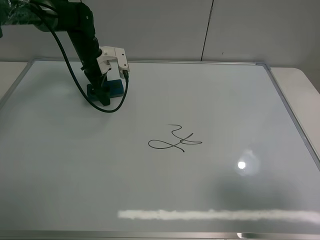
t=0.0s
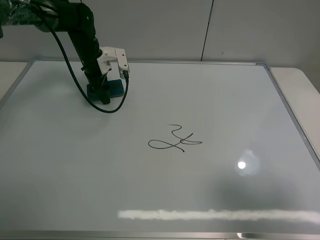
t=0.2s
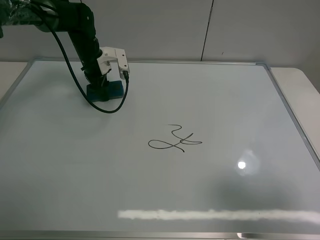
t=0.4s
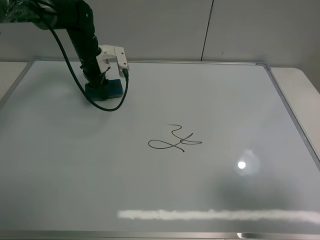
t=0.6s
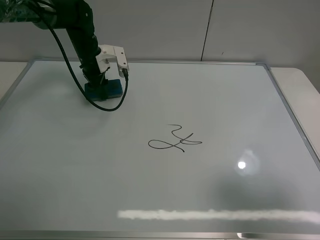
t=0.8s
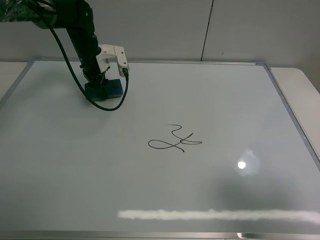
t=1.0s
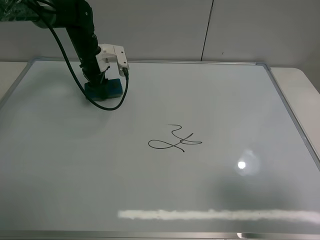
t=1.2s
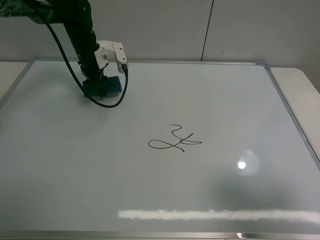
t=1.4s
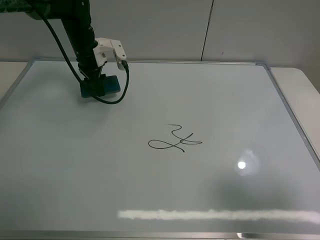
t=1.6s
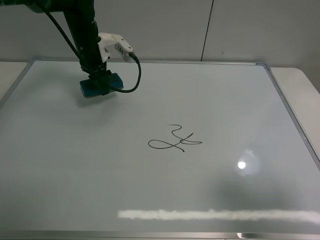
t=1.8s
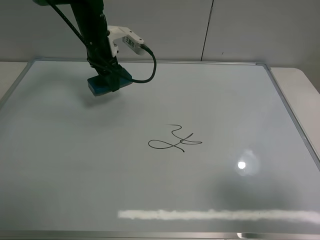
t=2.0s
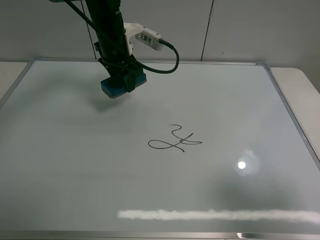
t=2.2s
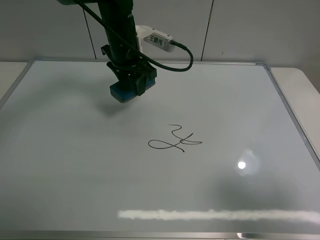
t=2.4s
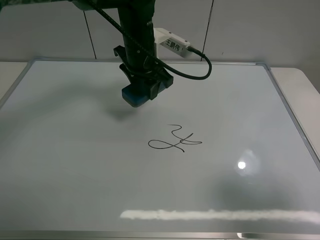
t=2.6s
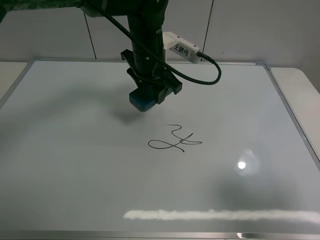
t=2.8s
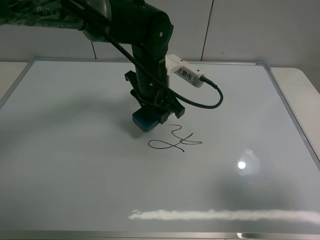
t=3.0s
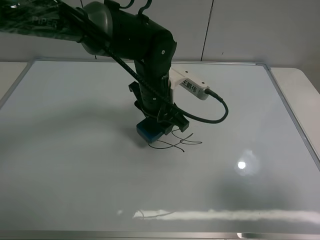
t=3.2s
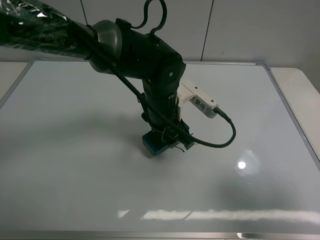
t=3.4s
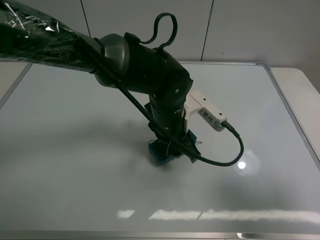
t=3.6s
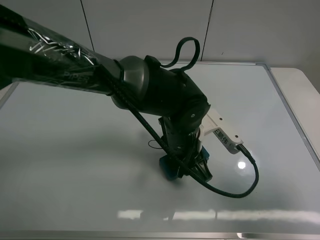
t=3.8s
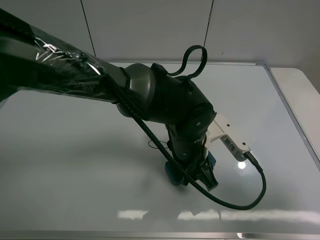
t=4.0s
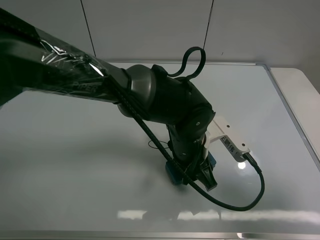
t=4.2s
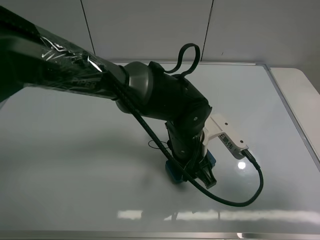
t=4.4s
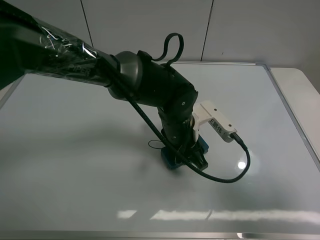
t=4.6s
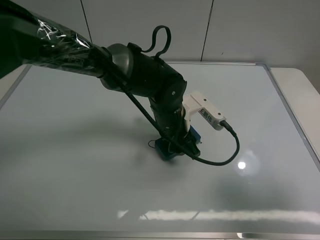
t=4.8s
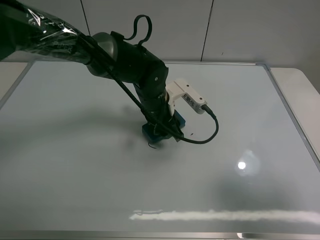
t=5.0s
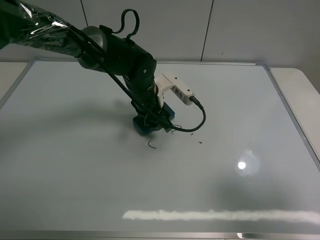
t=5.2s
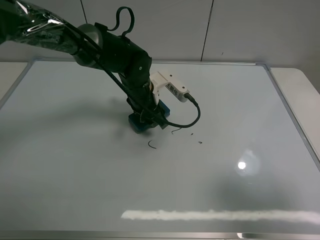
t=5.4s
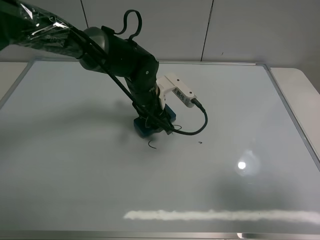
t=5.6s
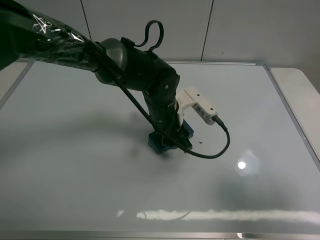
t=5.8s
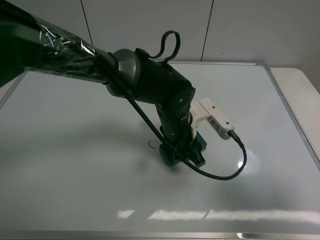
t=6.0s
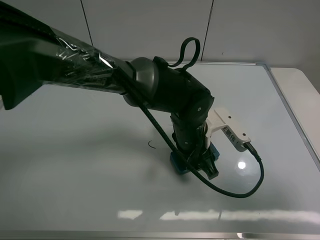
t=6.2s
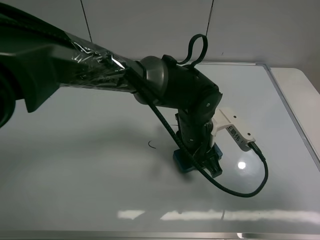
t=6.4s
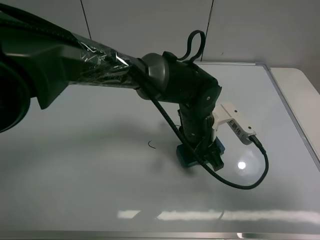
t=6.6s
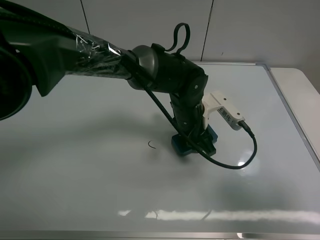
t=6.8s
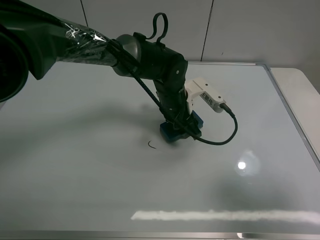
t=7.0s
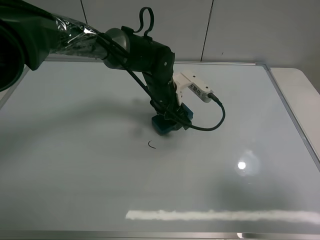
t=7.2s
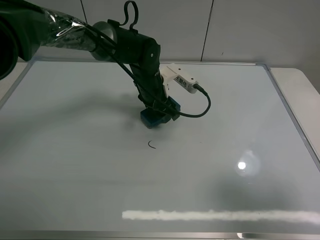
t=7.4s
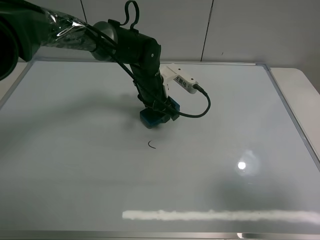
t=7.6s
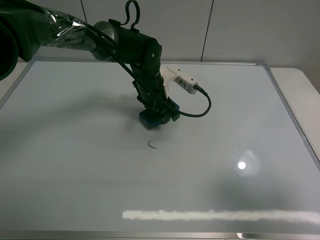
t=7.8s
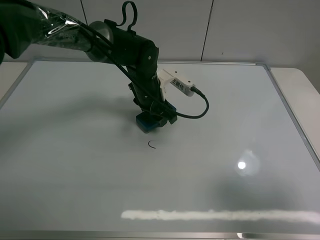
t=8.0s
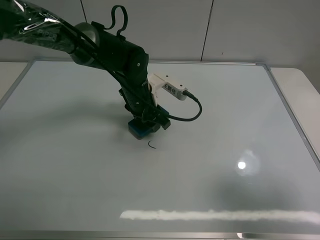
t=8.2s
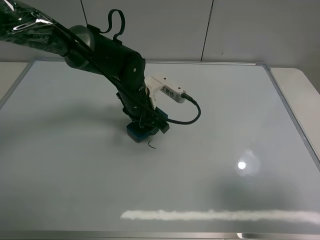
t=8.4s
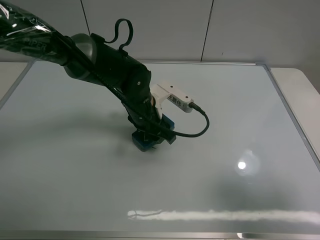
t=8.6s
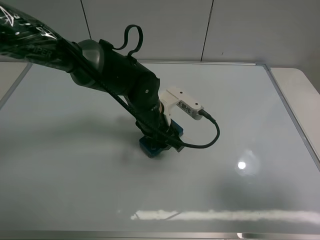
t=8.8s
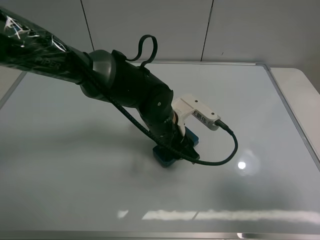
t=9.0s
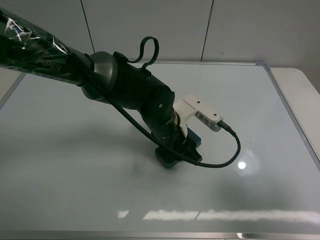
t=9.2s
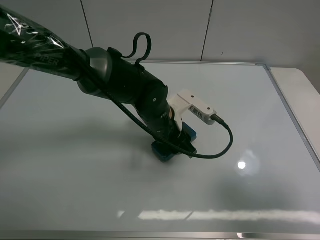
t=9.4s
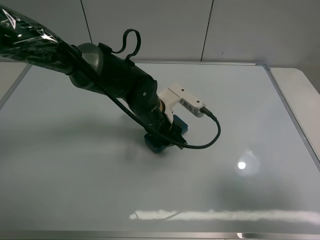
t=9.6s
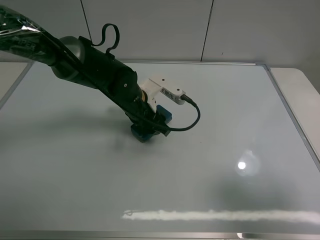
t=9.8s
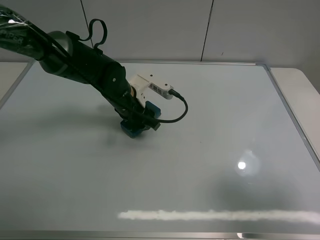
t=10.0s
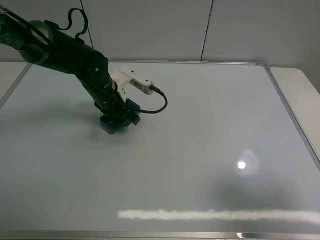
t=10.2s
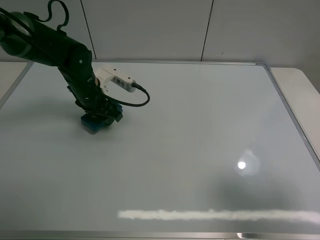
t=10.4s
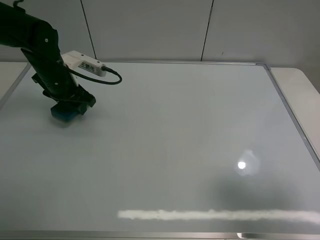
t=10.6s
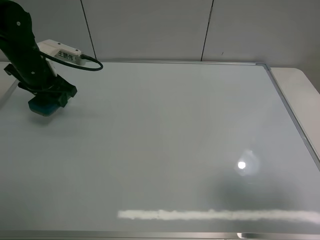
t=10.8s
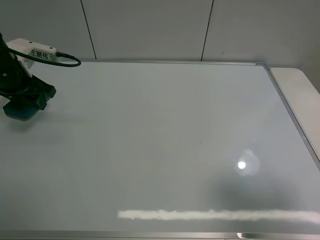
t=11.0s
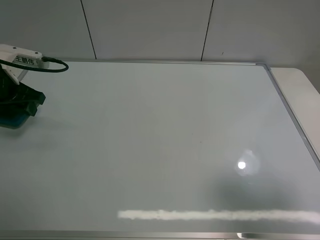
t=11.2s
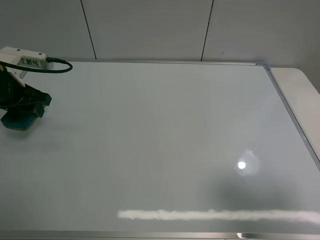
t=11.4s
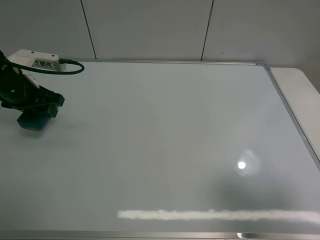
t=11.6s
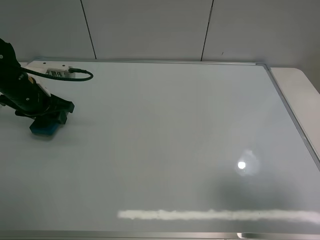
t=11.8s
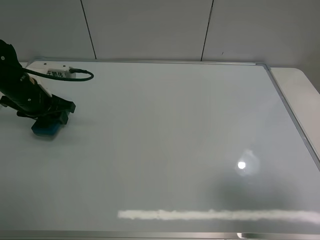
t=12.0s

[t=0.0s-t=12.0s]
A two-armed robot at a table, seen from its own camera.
Task of the whole recording: use the left claw to pick up the whiteboard eraser, wipe the notes on the whiteboard clean, and then put them back in place.
Step, t=0.6s to t=10.4s: Grasp the eraser and wipe the blackboard with the left gripper.
t=0.0s to t=1.6s: The left gripper closes up.
t=1.6s to t=3.0s: The left gripper shifts about 20 cm to the right and backward.
t=3.0s to t=4.4s: The left gripper moves backward, downward and to the right, about 15 cm.
t=4.4s to t=6.0s: The left gripper moves approximately 10 cm forward and comes back.
t=6.0s to t=7.6s: The left gripper heads forward and to the left, covering some 15 cm.
t=7.6s to t=9.0s: The left gripper travels backward by approximately 10 cm.
t=9.0s to t=10.4s: The left gripper moves to the left and forward, some 20 cm.
t=10.4s to t=12.0s: The left gripper shifts approximately 10 cm to the left.

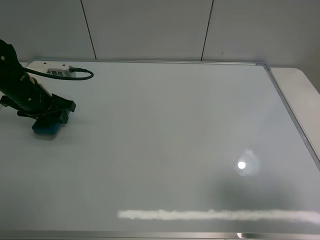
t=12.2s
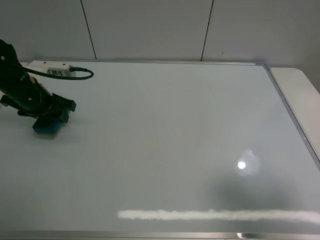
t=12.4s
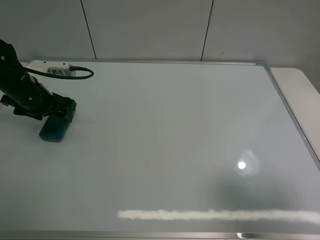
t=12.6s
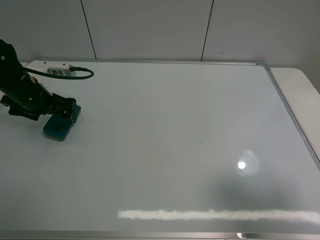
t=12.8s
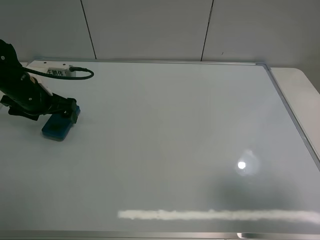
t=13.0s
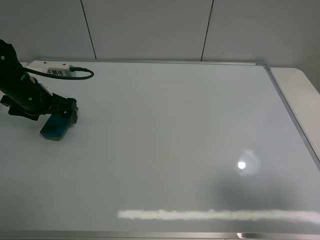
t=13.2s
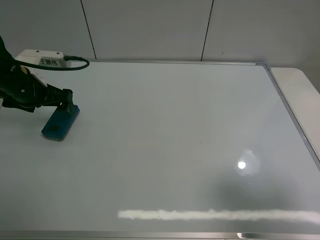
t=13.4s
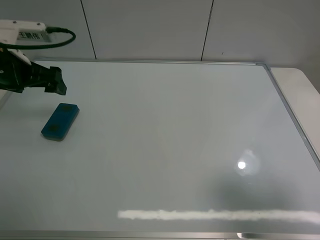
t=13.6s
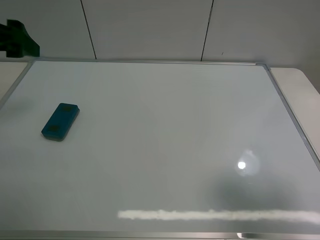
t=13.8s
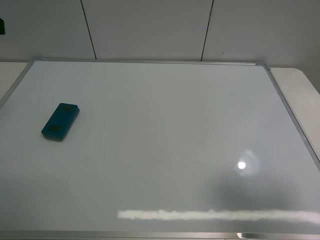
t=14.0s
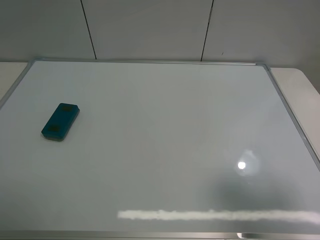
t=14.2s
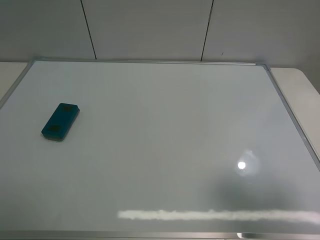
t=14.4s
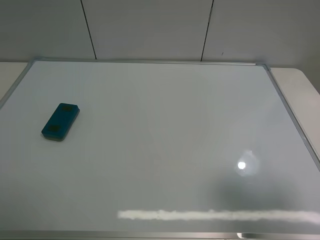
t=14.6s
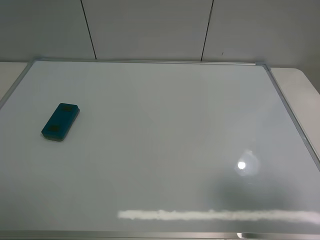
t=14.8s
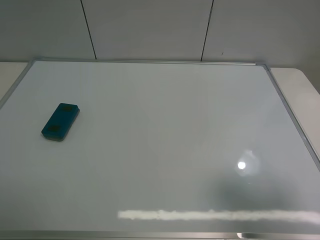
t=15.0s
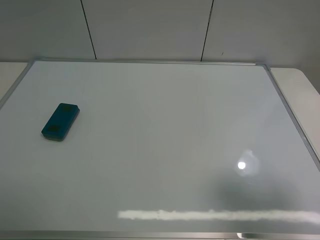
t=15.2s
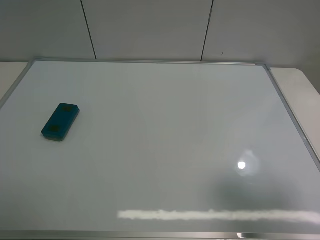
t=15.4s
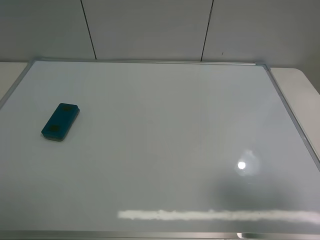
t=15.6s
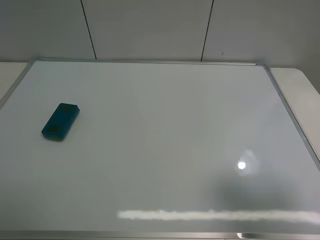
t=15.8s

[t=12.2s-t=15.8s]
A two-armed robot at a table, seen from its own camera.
Task of the whole recording: use the left claw to pick up the whiteboard eraser, wipe the notes on the whiteboard clean, and then put them back in place.
t=12.2s to t=14.0s: The left gripper goes roughly 25 cm upward and backward, and opens its fingers.
